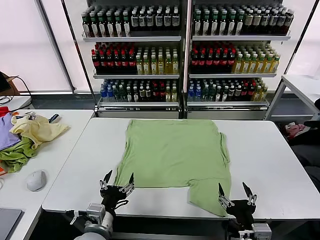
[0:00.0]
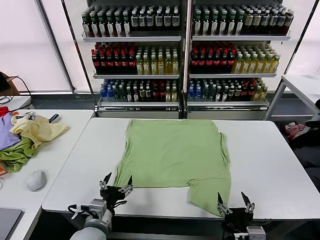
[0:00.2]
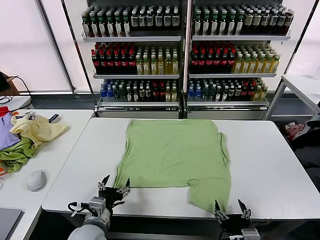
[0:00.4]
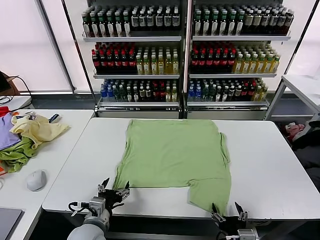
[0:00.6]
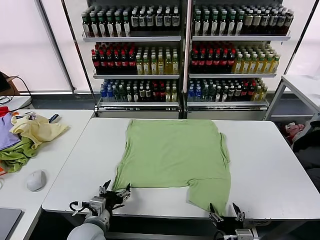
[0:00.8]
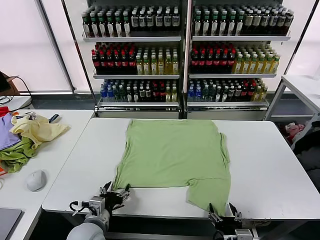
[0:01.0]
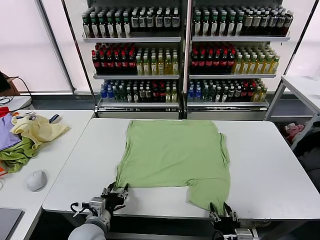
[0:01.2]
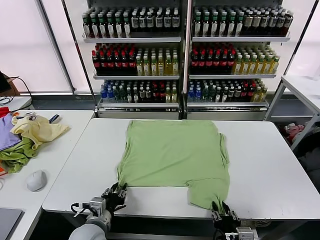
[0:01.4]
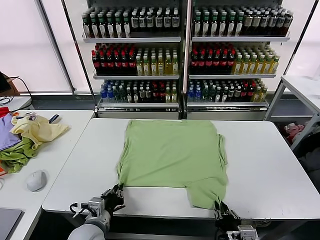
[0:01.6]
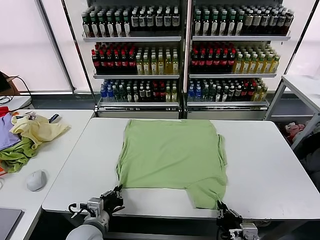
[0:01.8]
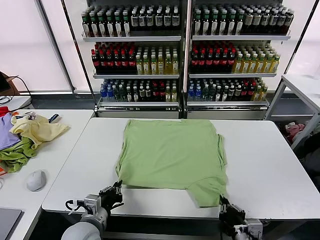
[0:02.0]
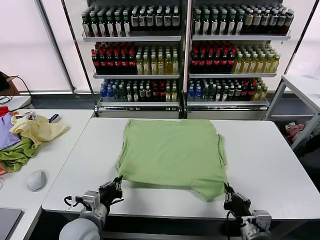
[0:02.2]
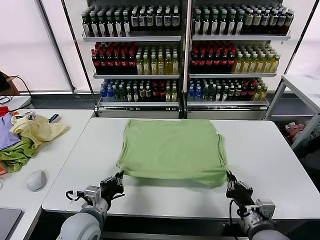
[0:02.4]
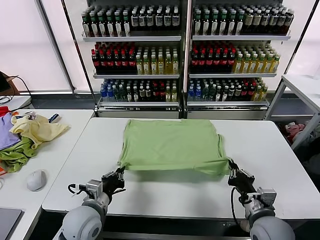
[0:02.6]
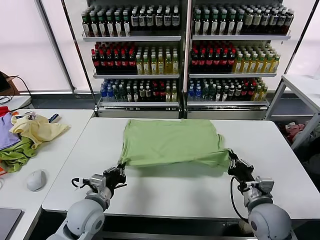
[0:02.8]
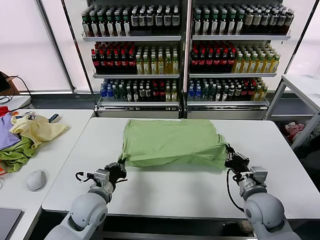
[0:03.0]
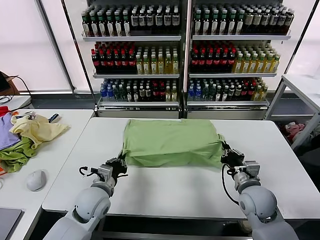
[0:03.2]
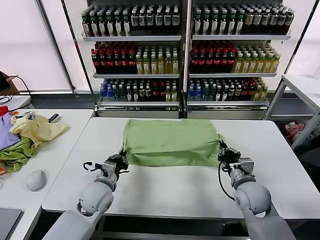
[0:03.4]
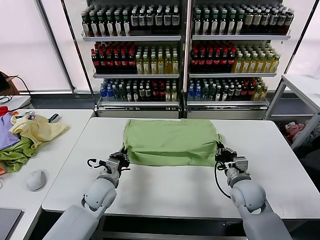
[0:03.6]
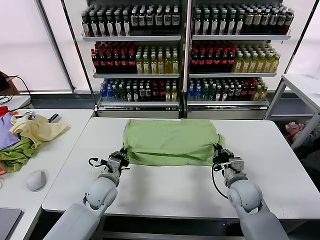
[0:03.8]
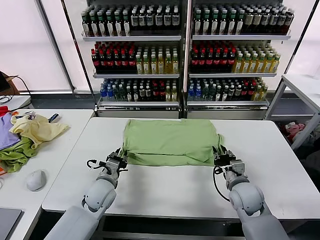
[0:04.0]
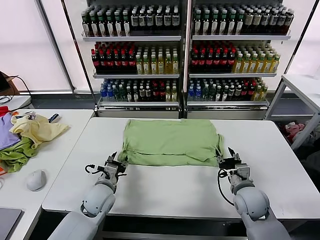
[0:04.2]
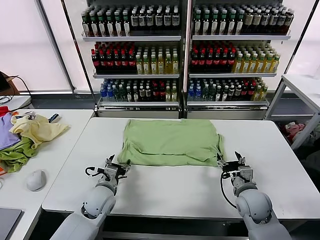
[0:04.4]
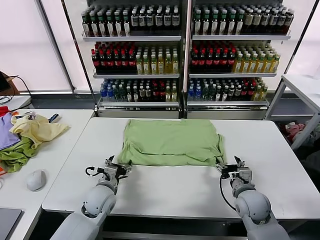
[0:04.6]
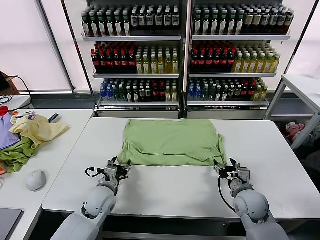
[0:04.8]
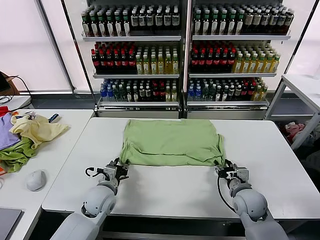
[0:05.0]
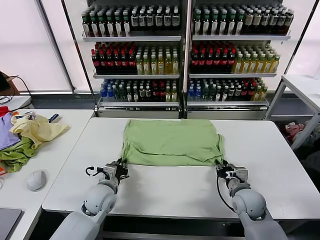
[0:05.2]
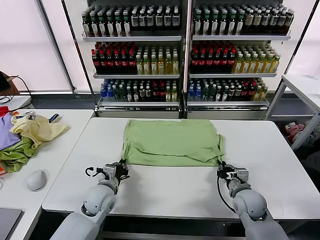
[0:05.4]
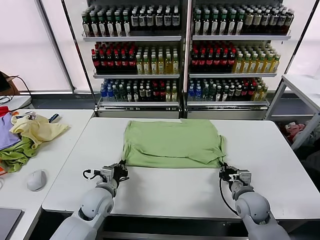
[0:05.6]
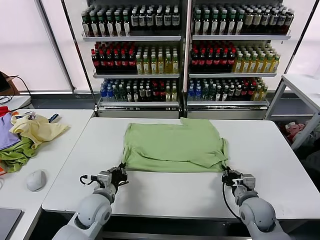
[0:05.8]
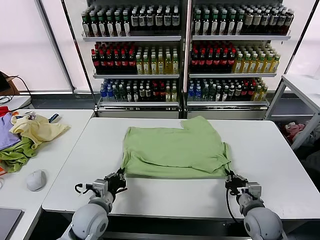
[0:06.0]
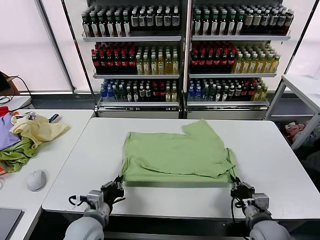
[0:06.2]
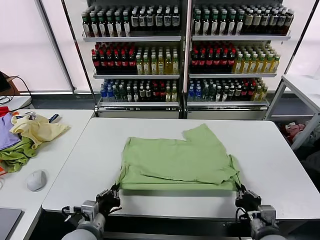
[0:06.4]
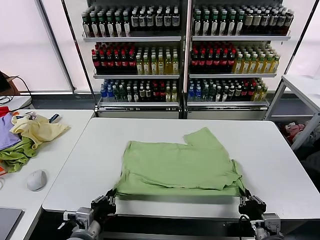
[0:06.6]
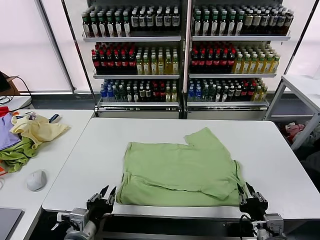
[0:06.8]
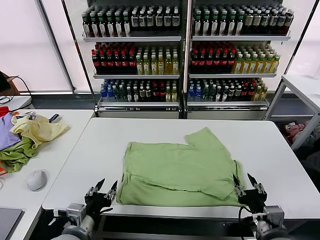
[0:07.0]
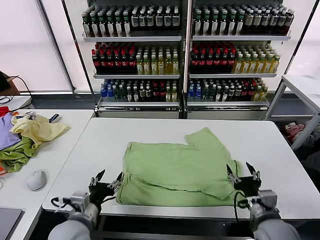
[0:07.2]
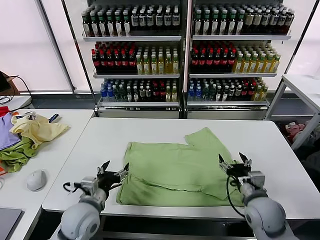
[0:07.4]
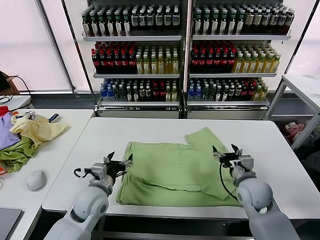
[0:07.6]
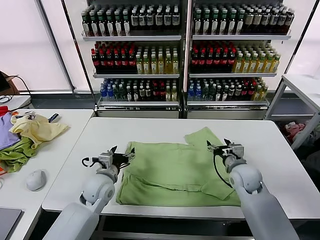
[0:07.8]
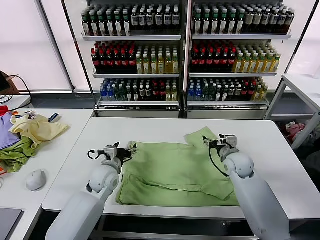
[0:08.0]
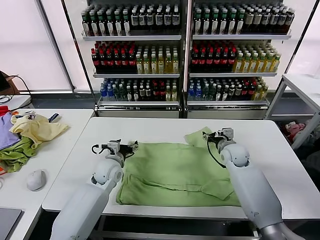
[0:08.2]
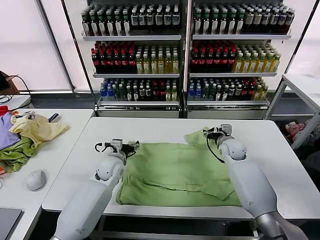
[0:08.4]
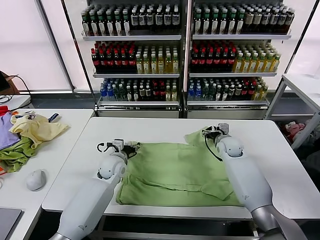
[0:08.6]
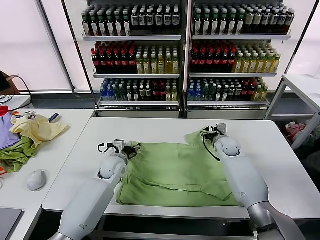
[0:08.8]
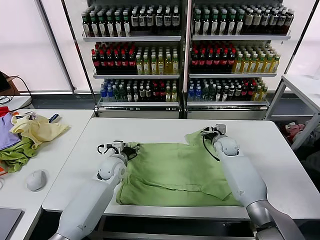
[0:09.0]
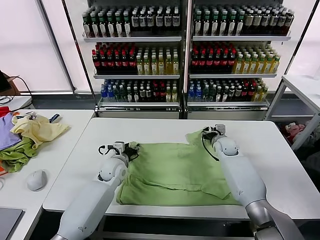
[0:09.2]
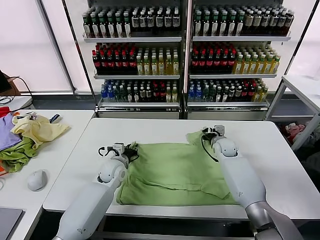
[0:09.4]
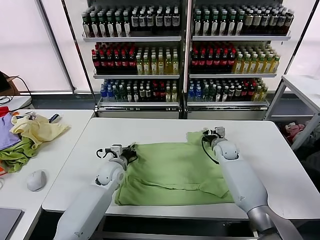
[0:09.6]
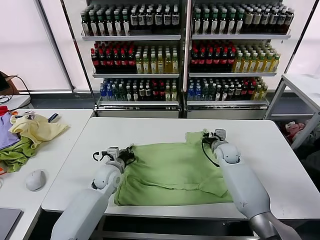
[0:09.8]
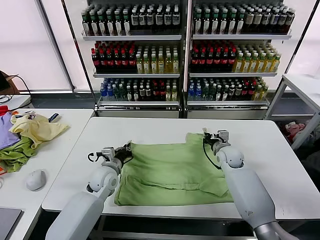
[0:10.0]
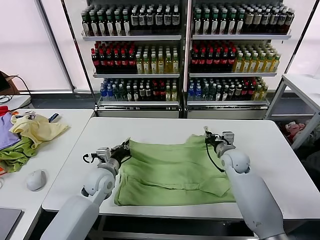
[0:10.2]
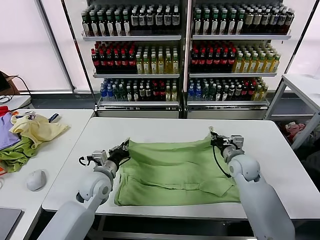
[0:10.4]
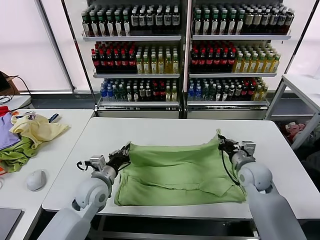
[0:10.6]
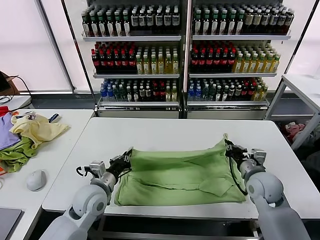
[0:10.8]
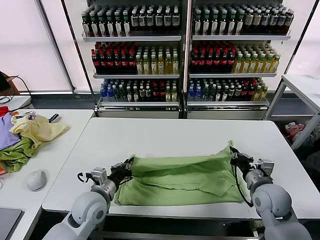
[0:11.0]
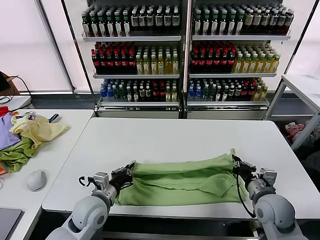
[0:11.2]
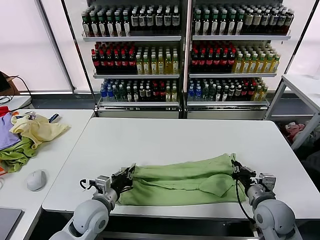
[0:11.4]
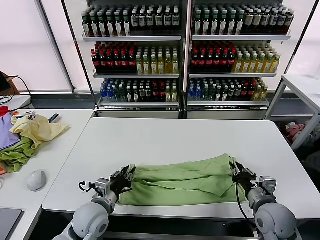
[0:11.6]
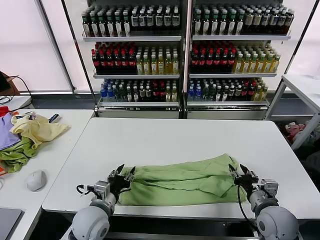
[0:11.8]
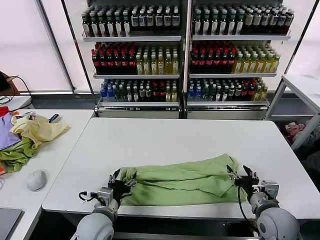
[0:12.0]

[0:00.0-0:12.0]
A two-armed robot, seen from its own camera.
Task of the whole recording: fold and organize the clothes.
Step, 0.0 to 1.8 s: use both grippers simultaneously to clamp the lower edge of the clothing fabric.
Step, 2.0 to 4.0 s: use both grippers to drag the lower edge of the fabric forward and fold it over the upper edge.
Step, 4.2 to 6.8 s: Drag the clothes downward with both gripper.
Step, 7.0 to 9.6 s: use both grippers simultaneously to clamp the upper edge of the clothing fabric.
Step, 9.8 to 11.8 s: use both grippers to drag the upper edge of the fabric backward and fold it over the lower edge.
1.6 to 3.0 s: The left gripper heads forward, covering some 10 cm; the right gripper heads forward, covering roughly 15 cm.
3.0 to 4.4 s: The right gripper opens its fingers. Meanwhile the left gripper ends up about 5 cm from where it was, and opens up.
4.4 to 6.0 s: The two grippers go roughly 10 cm backward. The left gripper closes. The right gripper closes.
6.0 to 7.6 s: The left gripper moves forward, approximately 5 cm, and opens. Meanwhile the right gripper travels forward by roughly 15 cm, and opens.
7.6 to 9.0 s: Both grippers travel together forward, about 15 cm.
9.0 to 10.4 s: The grippers both shift backward by some 10 cm. The right gripper closes up, while the left gripper closes up.
10.4 to 12.0 s: Both grippers travel together backward, some 15 cm. The right gripper opens up. Meanwhile the left gripper opens up.

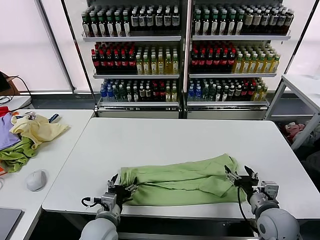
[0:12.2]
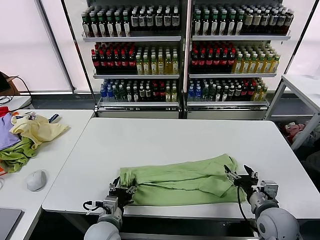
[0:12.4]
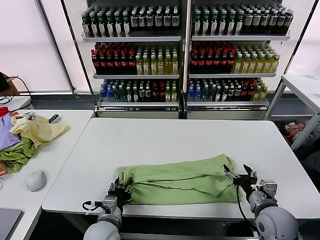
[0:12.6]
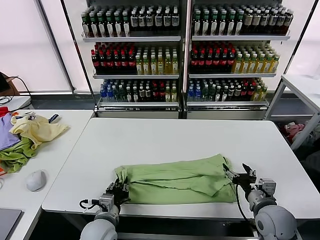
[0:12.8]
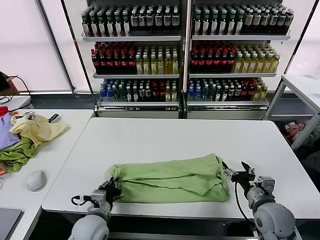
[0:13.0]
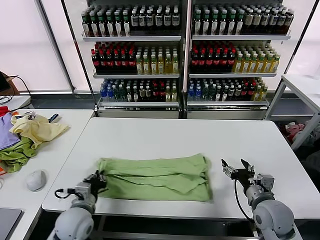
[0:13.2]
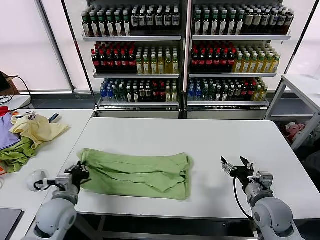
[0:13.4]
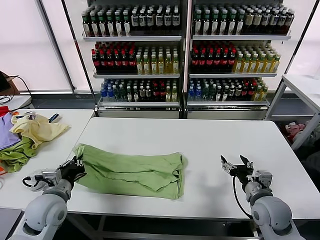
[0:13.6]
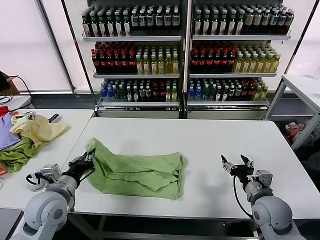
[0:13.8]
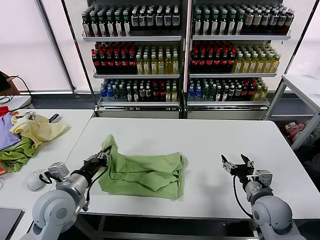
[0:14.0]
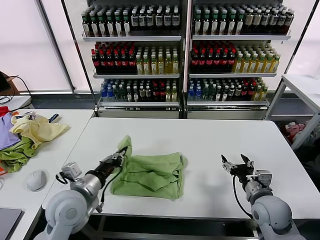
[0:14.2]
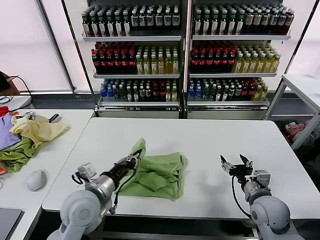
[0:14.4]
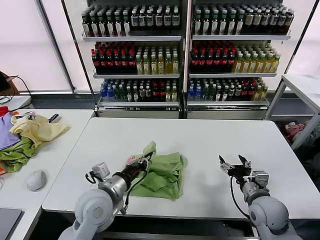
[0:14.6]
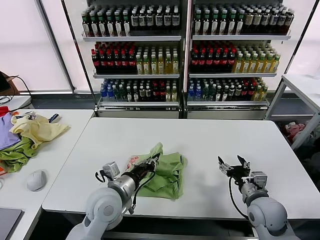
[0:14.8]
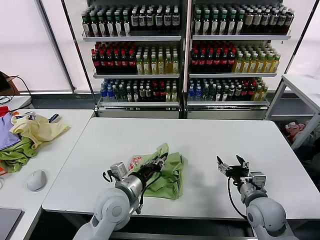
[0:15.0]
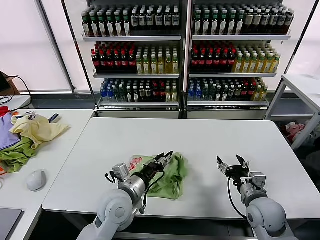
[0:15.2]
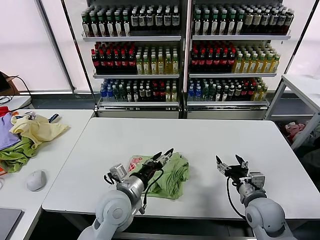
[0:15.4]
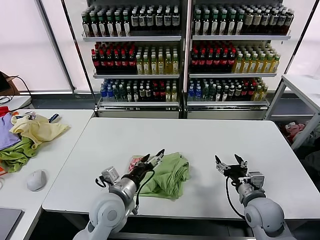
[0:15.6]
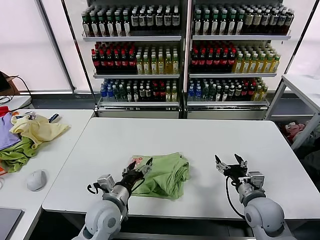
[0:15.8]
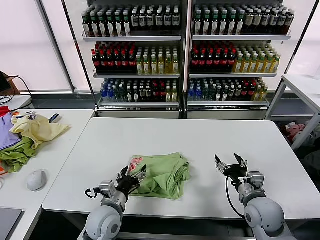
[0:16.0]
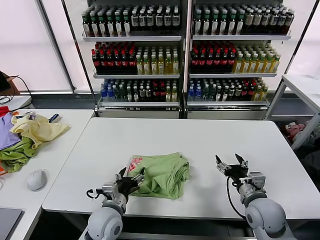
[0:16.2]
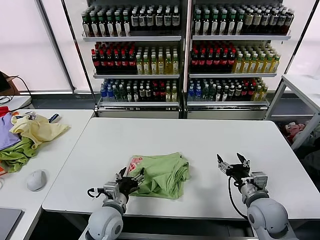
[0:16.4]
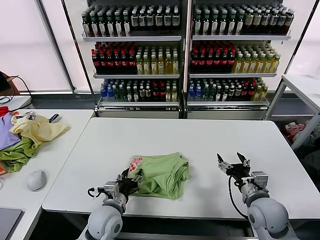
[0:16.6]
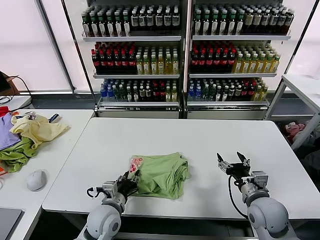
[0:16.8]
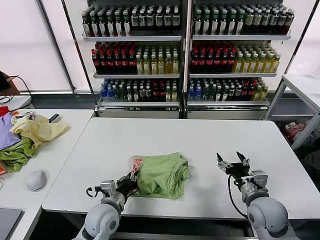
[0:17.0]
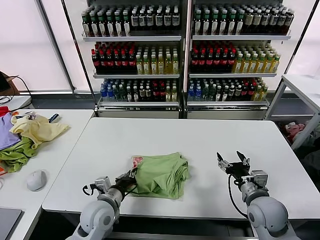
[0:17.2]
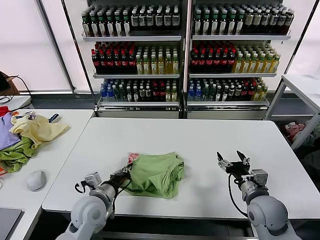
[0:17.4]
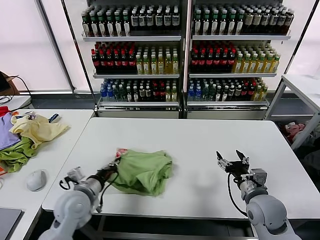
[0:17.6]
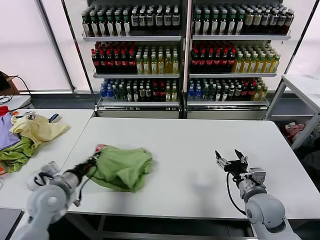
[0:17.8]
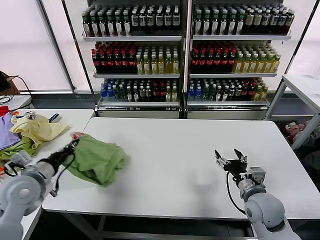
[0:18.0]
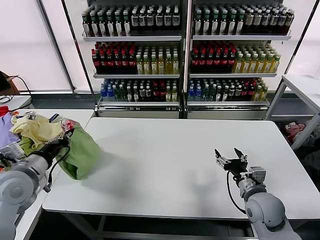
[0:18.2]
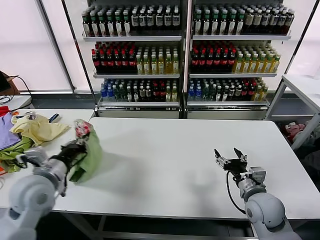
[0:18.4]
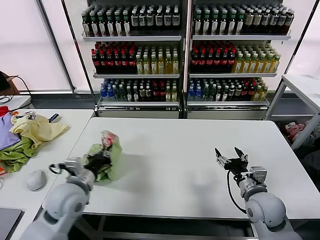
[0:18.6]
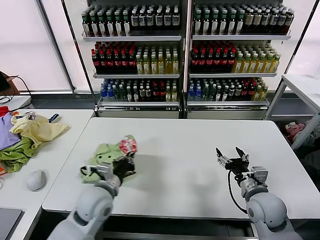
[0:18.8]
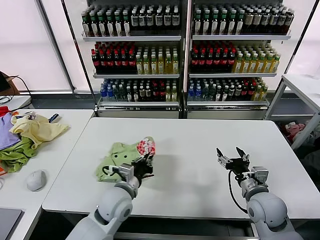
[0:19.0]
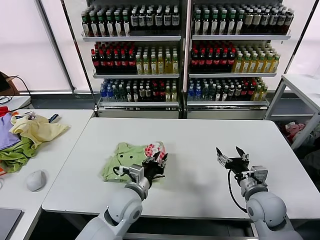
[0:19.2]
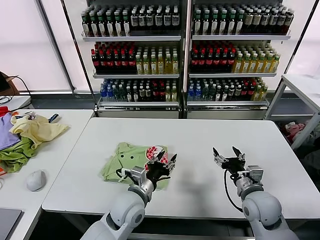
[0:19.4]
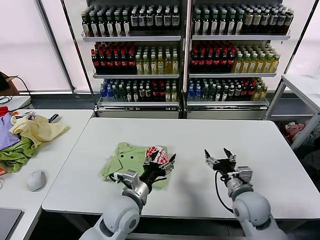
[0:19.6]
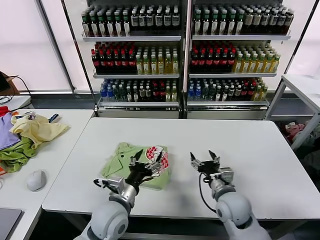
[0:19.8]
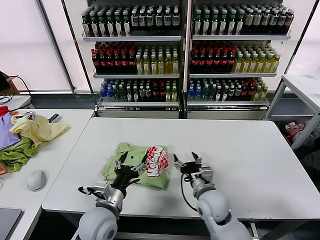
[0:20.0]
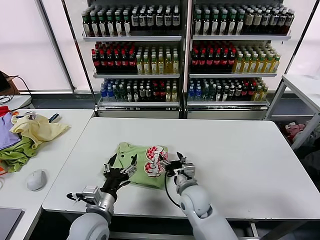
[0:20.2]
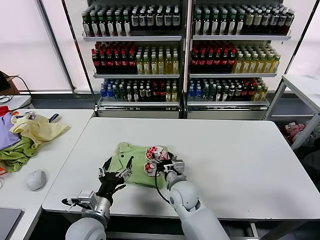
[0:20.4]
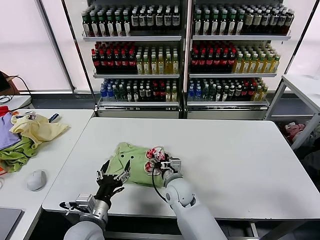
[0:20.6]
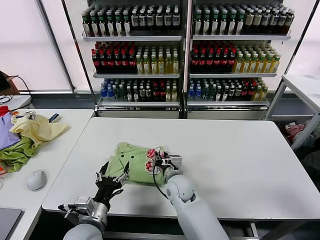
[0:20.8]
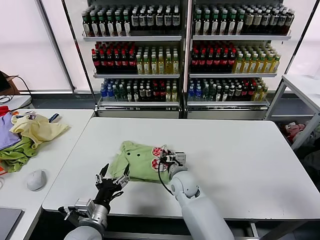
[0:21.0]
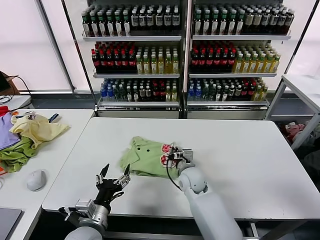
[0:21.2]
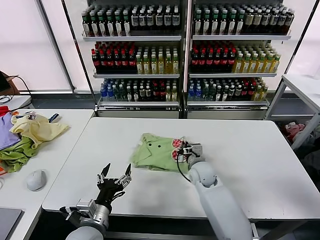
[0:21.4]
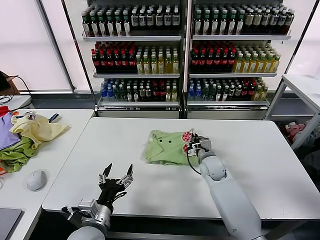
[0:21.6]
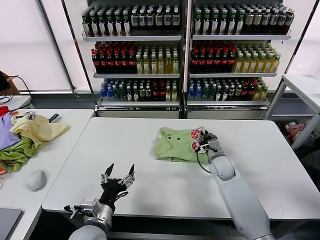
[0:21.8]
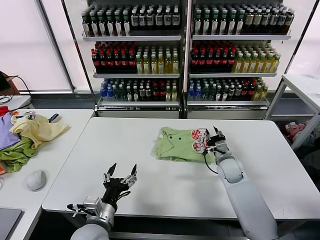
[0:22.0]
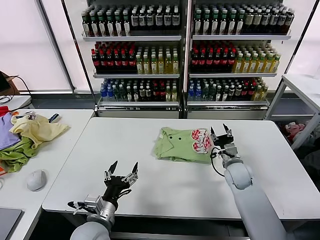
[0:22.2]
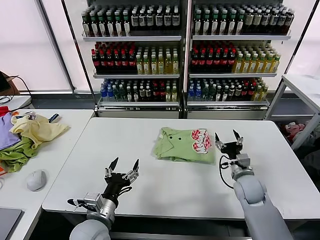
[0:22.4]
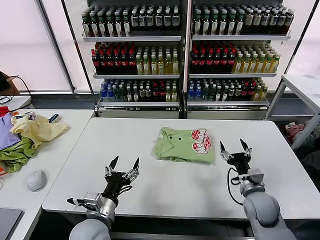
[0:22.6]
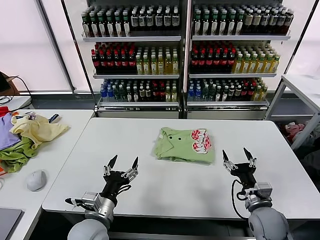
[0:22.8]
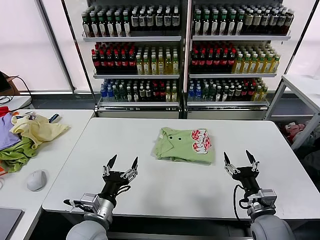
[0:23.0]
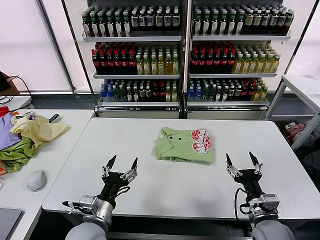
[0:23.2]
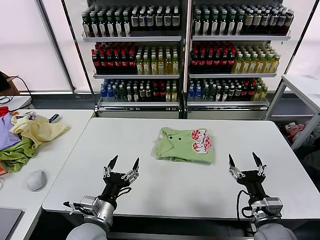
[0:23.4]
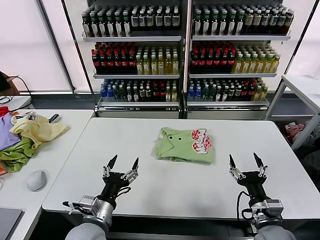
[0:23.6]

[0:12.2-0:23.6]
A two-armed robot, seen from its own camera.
Task of the whole recording: fold and organize the clothes.
Step, 12.2 to 13.0 s: use the left gripper to clamp the left edge of the fabric.
Step, 13.2 to 15.2 s: use the left gripper to drag the left edge of the fabric to the left and folds it over the right edge.
Step, 15.4 to 19.2 s: Flip the folded clothes over with left gripper.
Step, 19.4 to 21.8 s: Drag the clothes to the center of the table.
12.2 to 13.6 s: The left gripper moves to the left and upward, roughly 15 cm, and closes up.
13.6 to 15.0 s: The left gripper is displaced to the right by approximately 20 cm.
15.0 to 16.4 s: The left gripper is displaced downward by some 10 cm, and opens.
16.4 to 17.8 s: The left gripper goes some 15 cm to the left and upward, and closes up.
17.8 to 19.4 s: The left gripper heads to the right, covering roughly 20 cm, and opens up.
19.4 to 20.8 s: The left gripper is displaced to the left and backward by approximately 15 cm, and opens up; the right gripper goes roughly 25 cm to the left, and closes its fingers.
20.8 to 22.2 s: The right gripper moves to the right, roughly 20 cm, and closes, then opens again.
22.2 to 23.6 s: The right gripper shifts roughly 25 cm backward, and opens.
